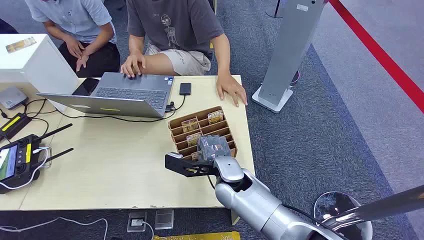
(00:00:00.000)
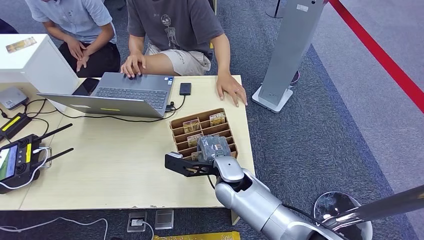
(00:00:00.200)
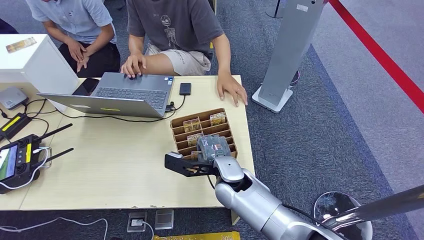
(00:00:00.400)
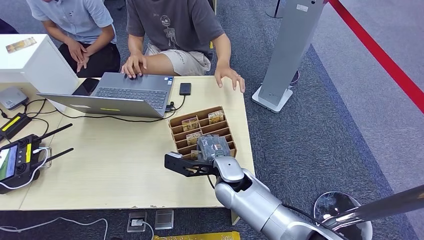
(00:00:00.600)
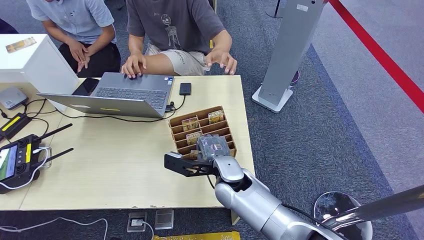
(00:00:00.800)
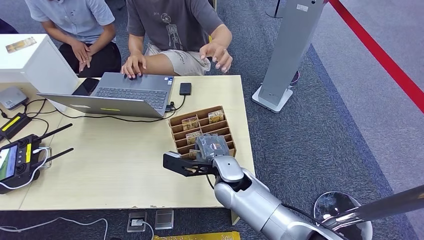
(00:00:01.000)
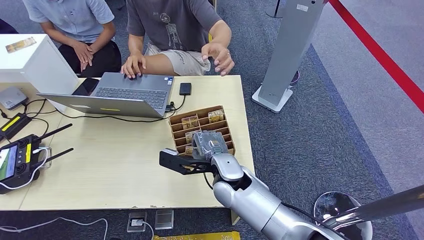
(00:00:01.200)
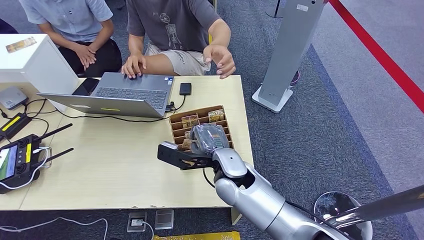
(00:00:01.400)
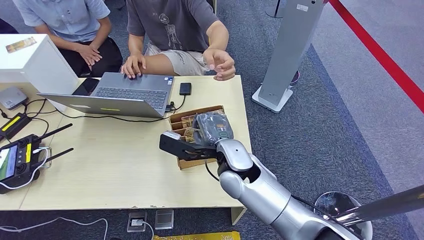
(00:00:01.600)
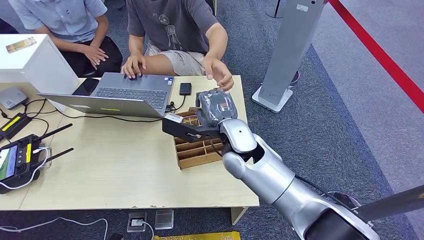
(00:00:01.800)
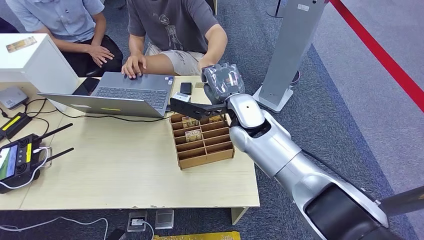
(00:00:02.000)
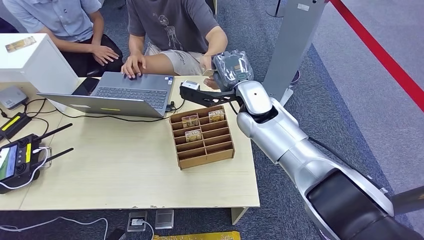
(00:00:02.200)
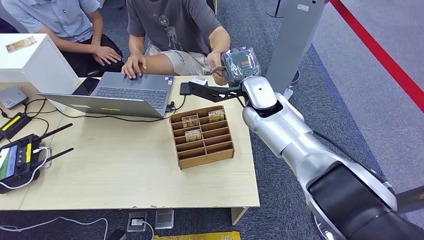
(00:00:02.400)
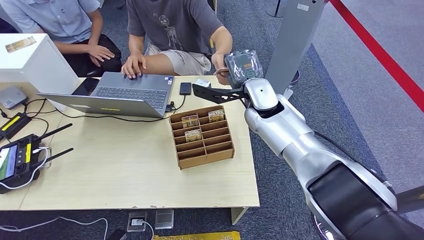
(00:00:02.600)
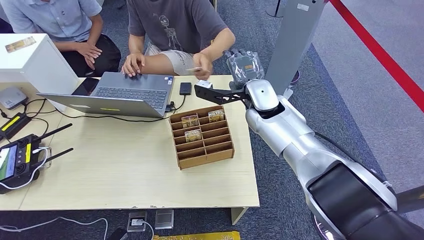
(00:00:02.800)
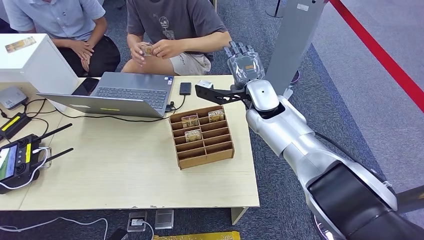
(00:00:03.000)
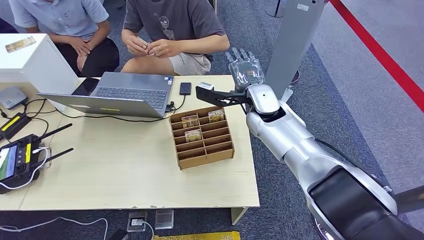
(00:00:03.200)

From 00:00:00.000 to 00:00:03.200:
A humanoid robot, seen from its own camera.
Step, from 00:00:00.000 to 00:00:01.400: Pick up the key card from the card box.
Step, from 00:00:01.800 to 00:00:03.000: Hand the key card to the target.
